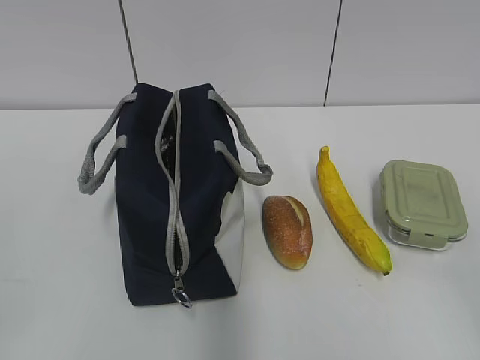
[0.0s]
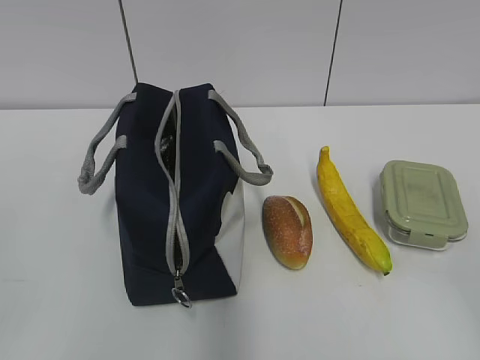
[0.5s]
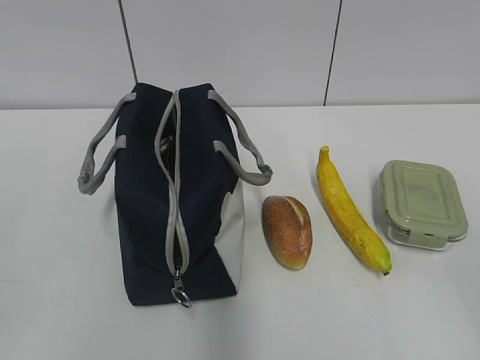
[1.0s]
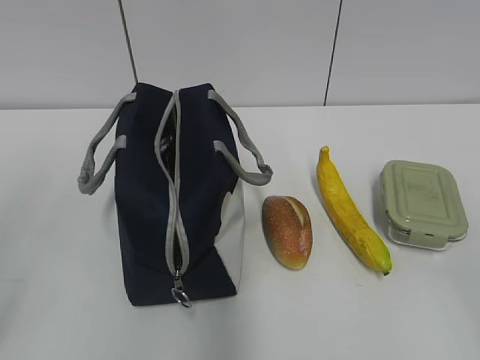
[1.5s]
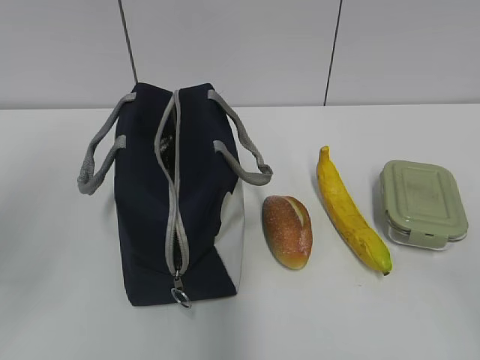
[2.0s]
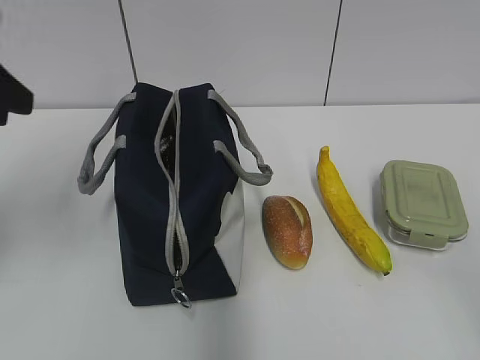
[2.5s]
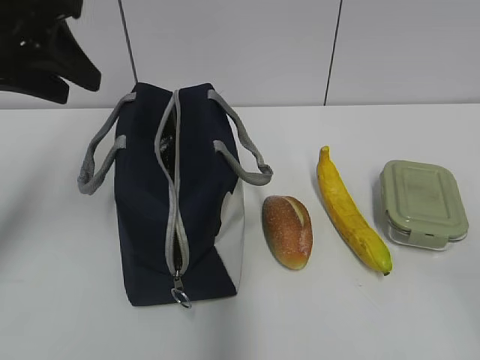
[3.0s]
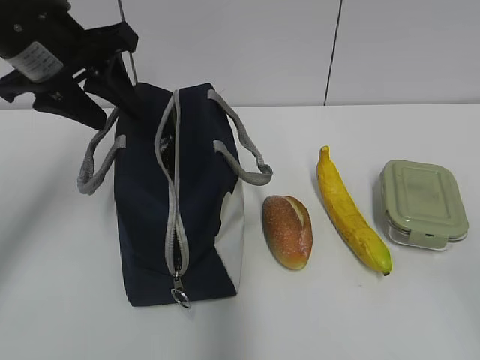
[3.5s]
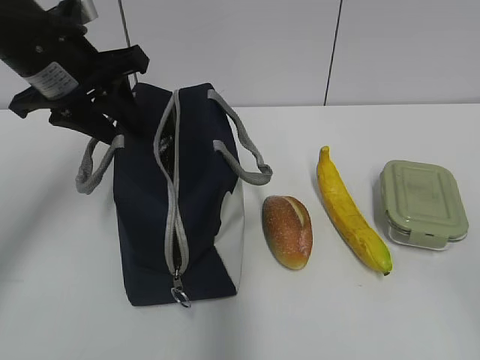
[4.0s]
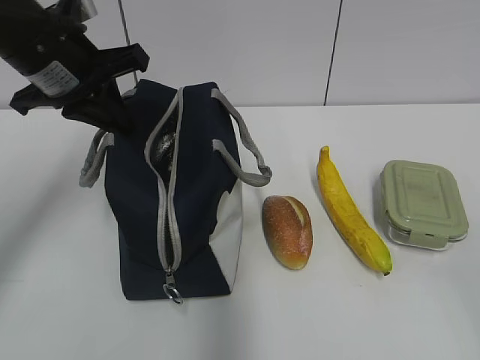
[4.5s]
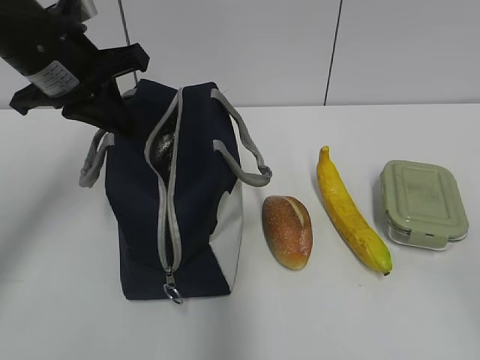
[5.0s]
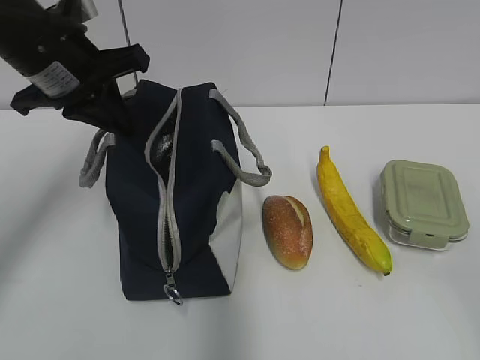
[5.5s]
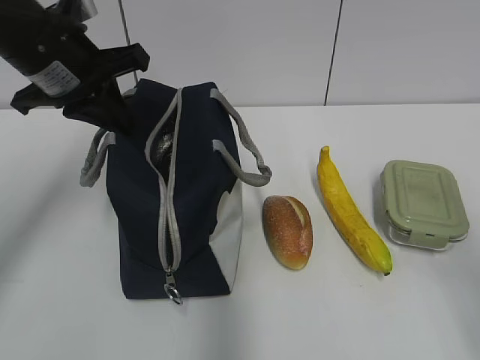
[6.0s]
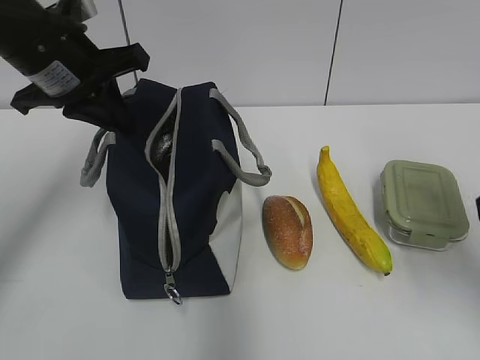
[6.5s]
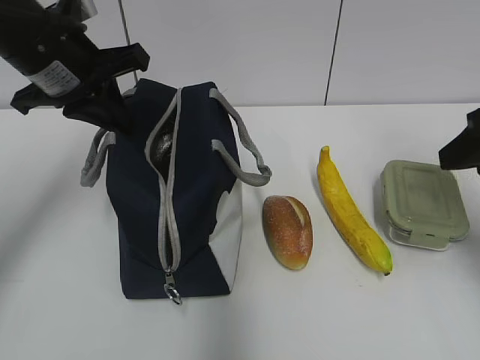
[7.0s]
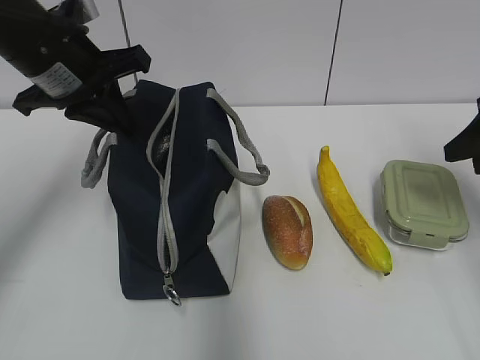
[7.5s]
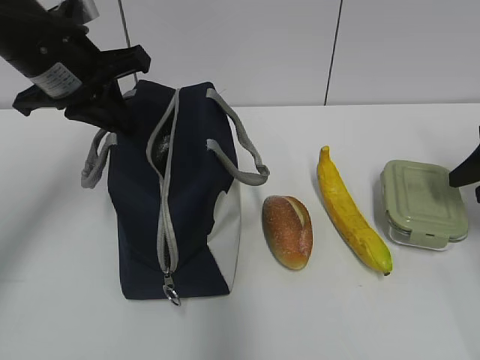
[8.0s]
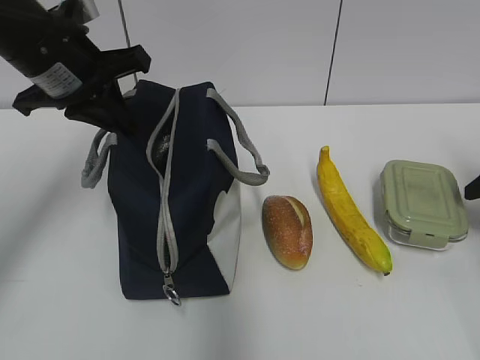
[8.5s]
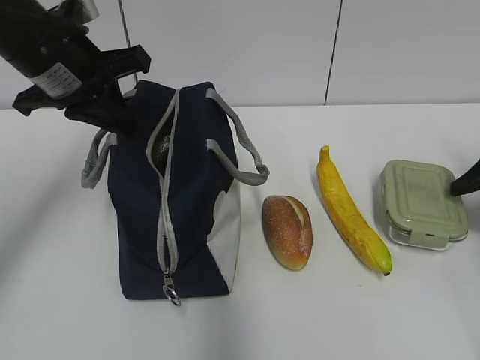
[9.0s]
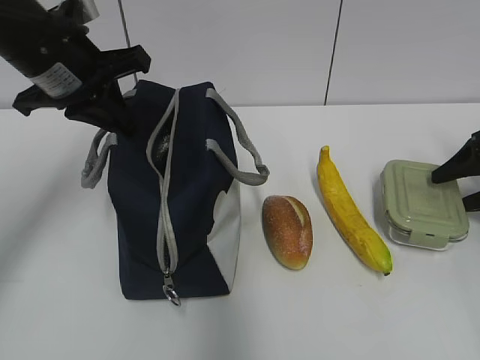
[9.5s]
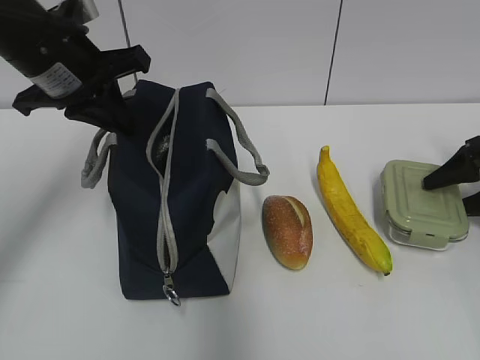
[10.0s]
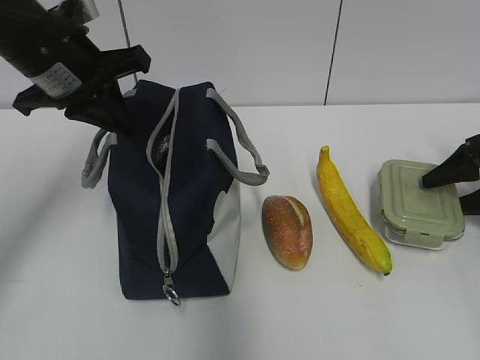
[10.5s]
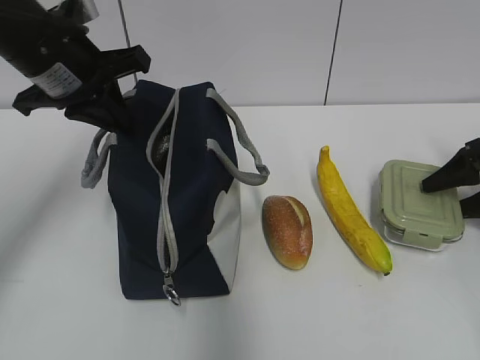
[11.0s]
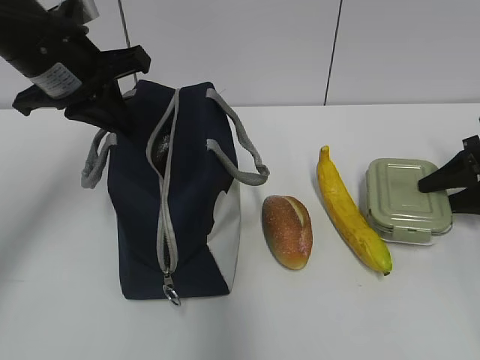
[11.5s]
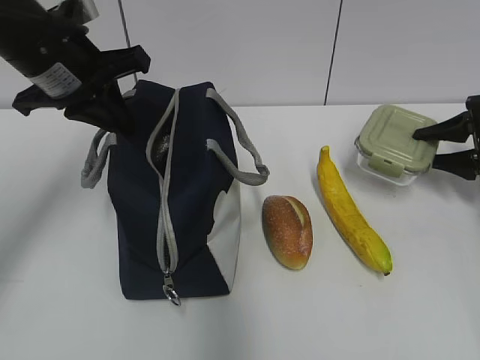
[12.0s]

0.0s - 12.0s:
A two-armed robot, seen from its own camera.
2.0s - 4.0s: The left gripper moves forward and to the right, roughly 20 cm.
4.0s - 6.0s: The left gripper closes its fingers. The right gripper moves forward, approximately 5 cm.
6.0s - 8.0s: The right gripper goes some 25 cm forward.
8.0s - 10.0s: The right gripper heads downward, covering roughly 5 cm.

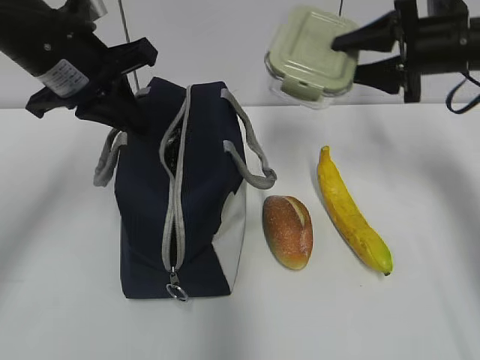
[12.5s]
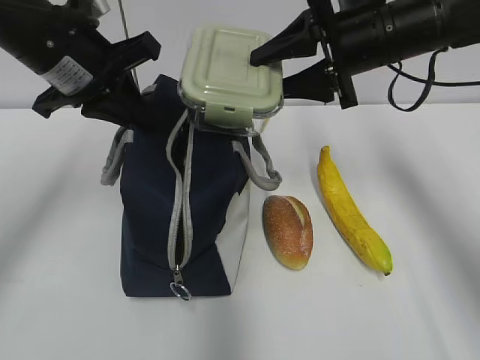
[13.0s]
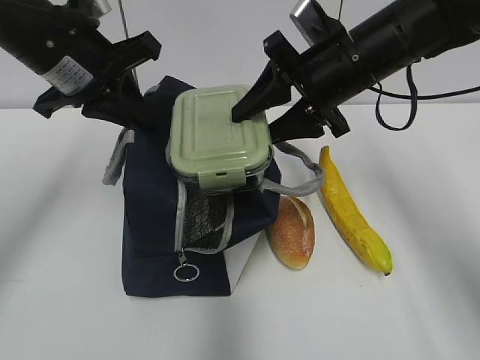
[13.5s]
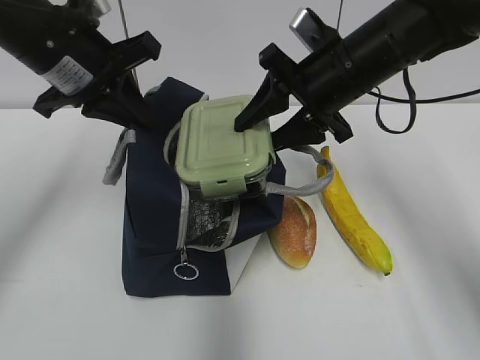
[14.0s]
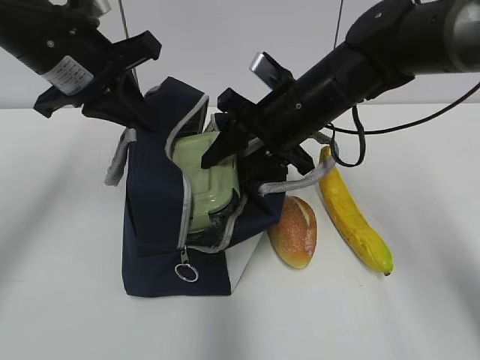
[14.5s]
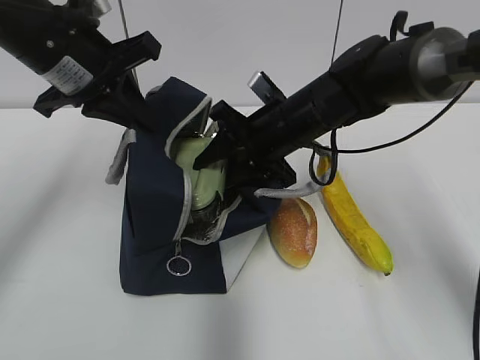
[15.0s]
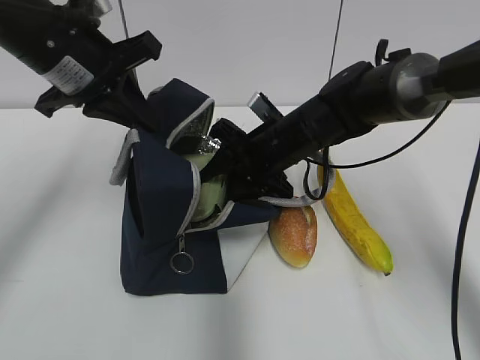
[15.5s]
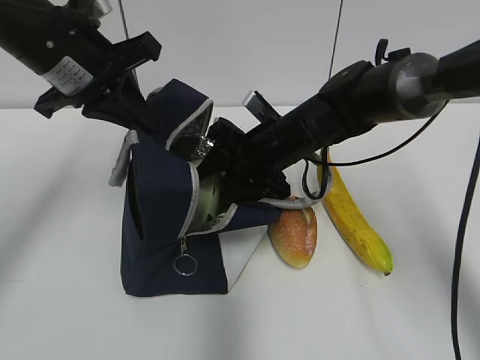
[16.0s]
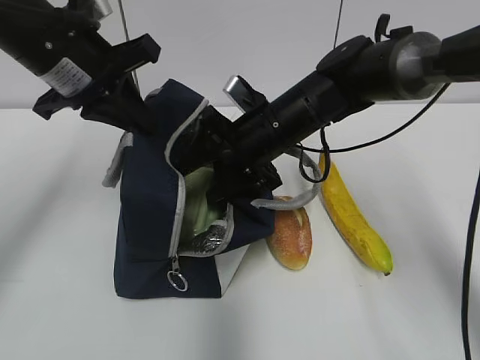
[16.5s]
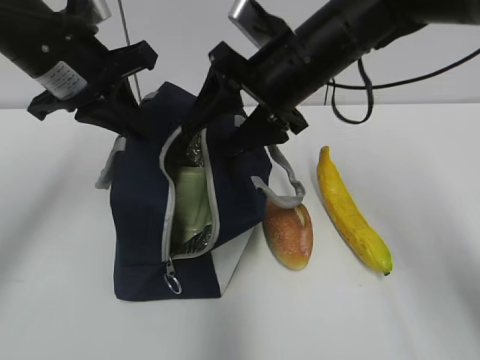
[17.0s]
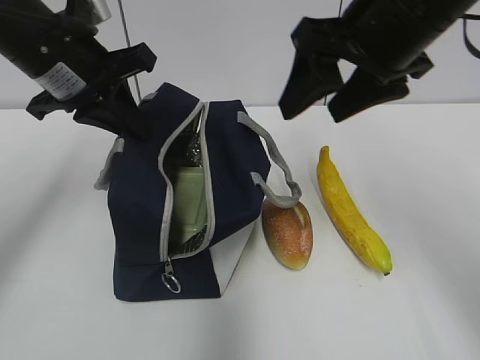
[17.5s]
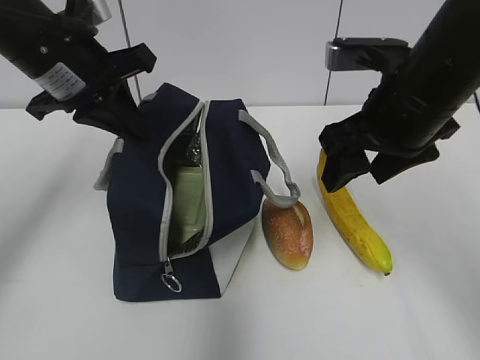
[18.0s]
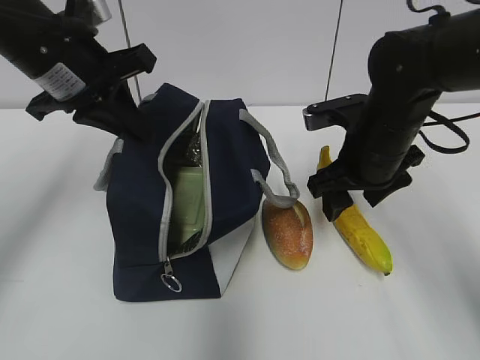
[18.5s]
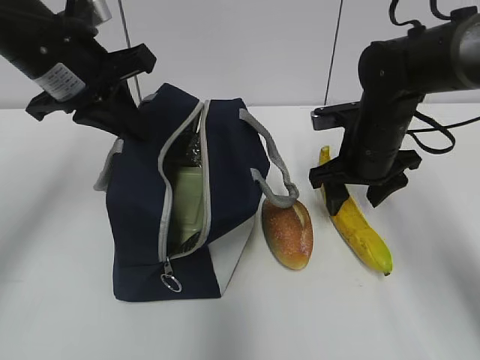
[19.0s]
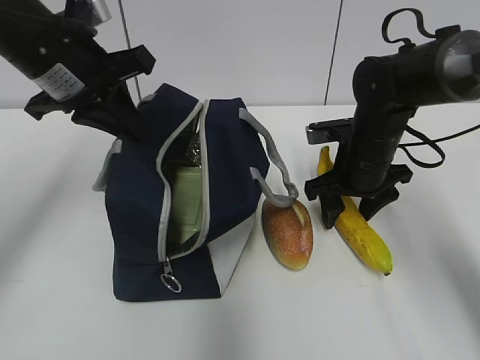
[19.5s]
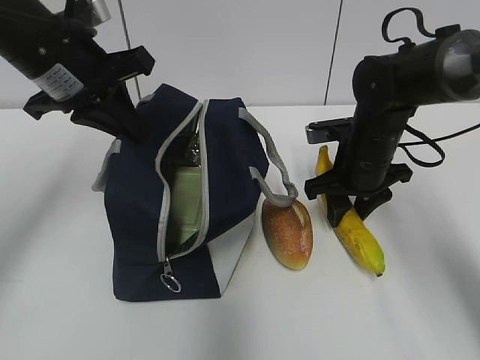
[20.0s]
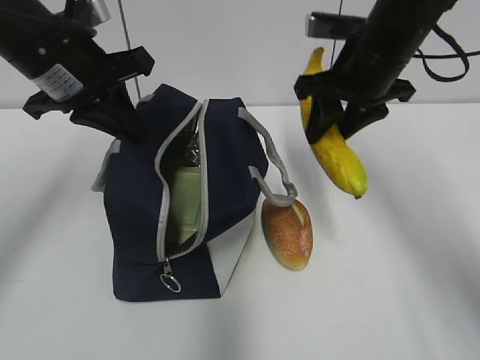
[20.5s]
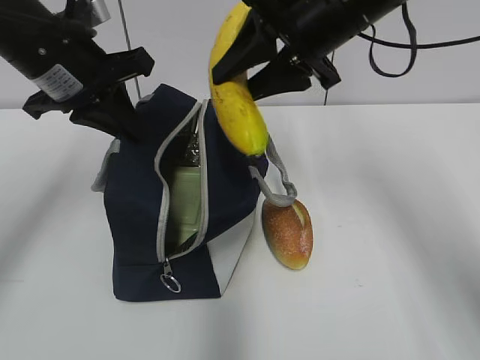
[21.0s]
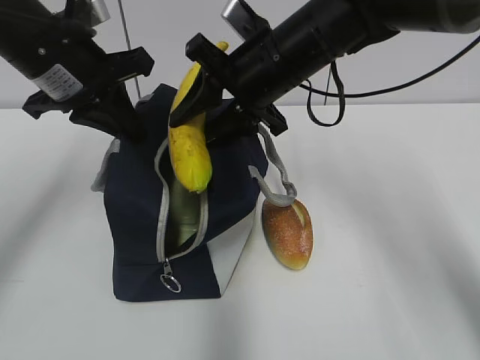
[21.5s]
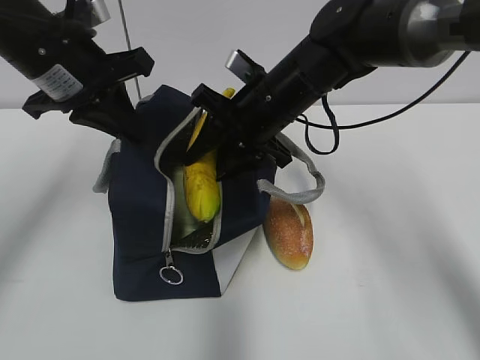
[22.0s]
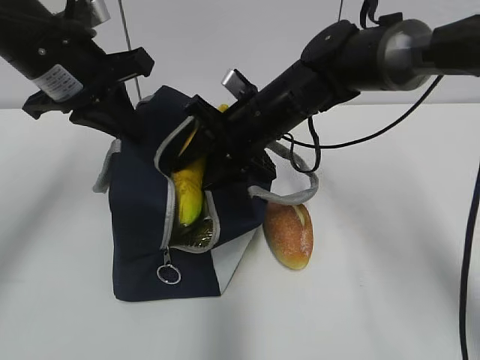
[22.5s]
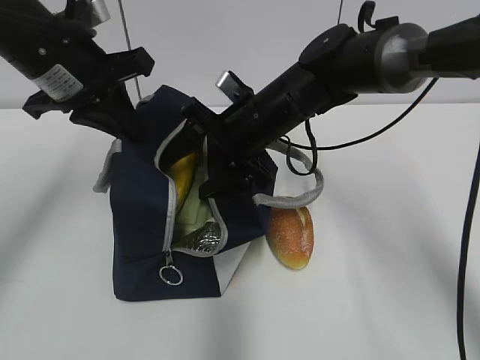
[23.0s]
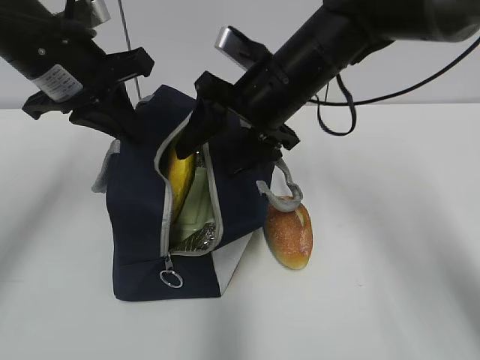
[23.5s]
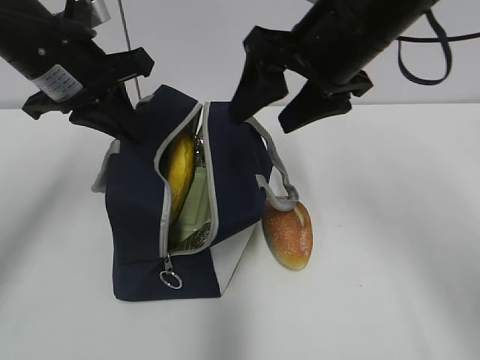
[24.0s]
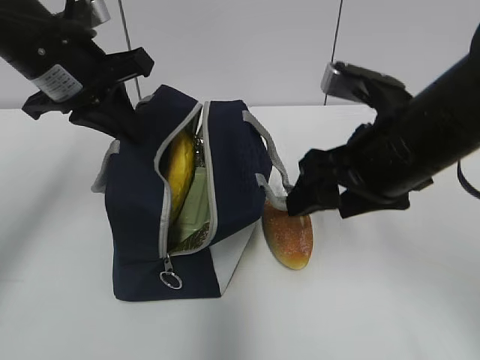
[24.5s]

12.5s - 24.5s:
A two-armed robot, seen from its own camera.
12.5s - 14.5s: The right gripper travels to the left by some 20 cm.
16.5s - 18.5s: The right gripper shifts approximately 10 cm to the right, and goes upward and returns, roughly 15 cm each way.
18.5s - 20.5s: The right gripper goes roughly 10 cm upward.
20.5s - 22.5s: The right gripper shifts some 15 cm to the left and downward.
22.5s - 24.5s: The right gripper goes about 15 cm backward and to the right, and opens up.

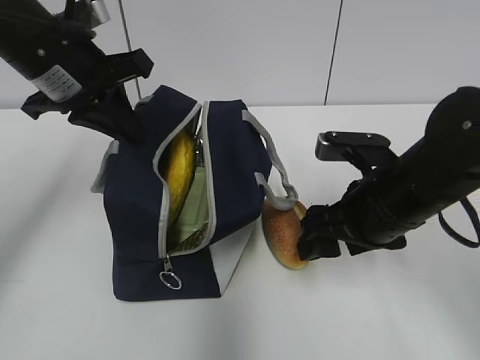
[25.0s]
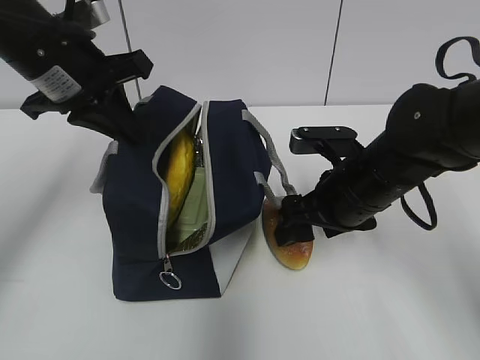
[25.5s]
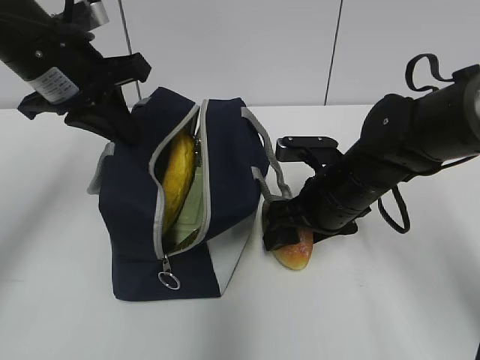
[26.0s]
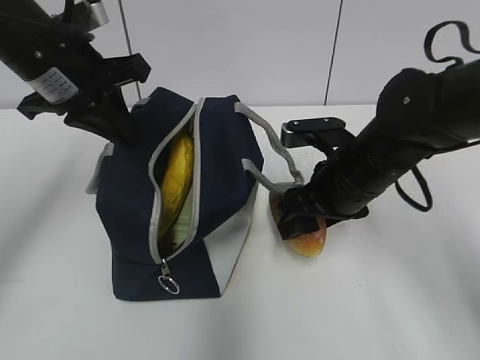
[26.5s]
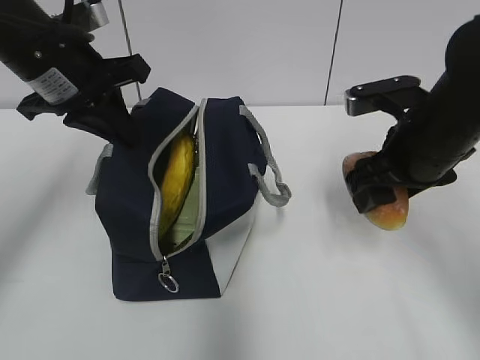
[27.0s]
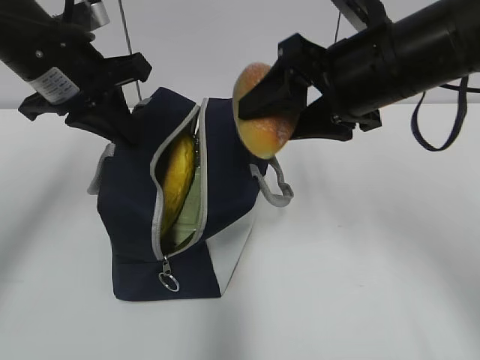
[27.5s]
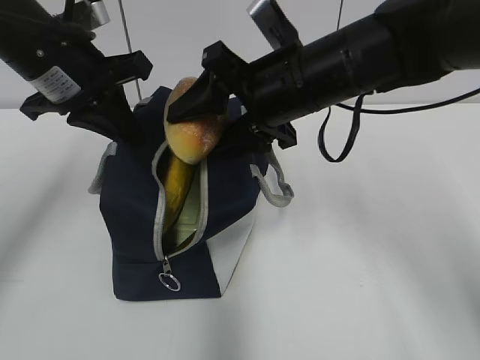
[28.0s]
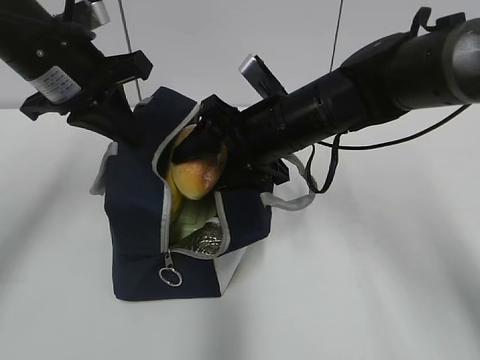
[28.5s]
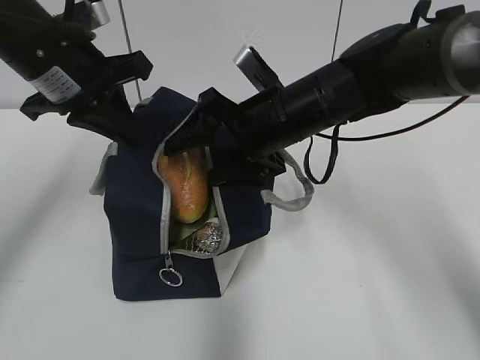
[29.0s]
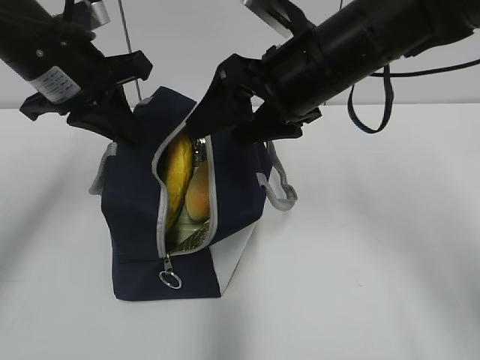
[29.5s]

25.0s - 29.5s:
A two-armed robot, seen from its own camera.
25.0s - 27.0s: The right gripper ends up some 5 cm from where it was.
27.0s - 29.5s: The right gripper moves to the left and upward, roughly 10 cm.
